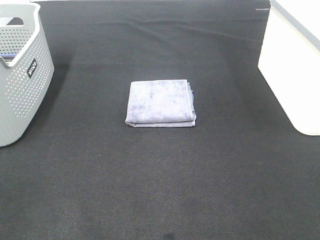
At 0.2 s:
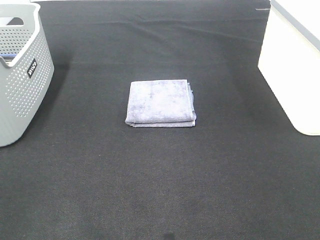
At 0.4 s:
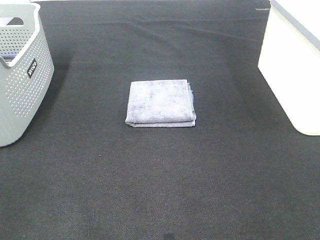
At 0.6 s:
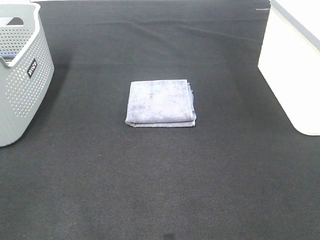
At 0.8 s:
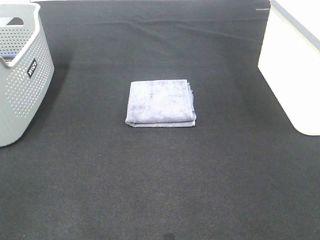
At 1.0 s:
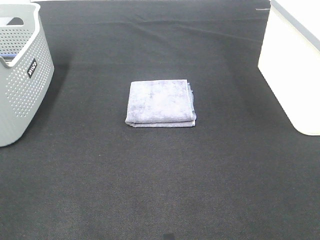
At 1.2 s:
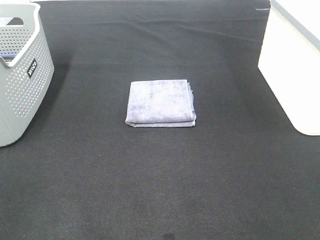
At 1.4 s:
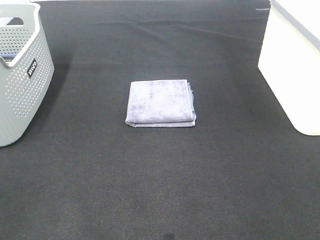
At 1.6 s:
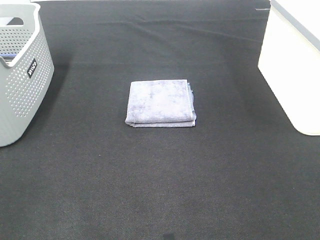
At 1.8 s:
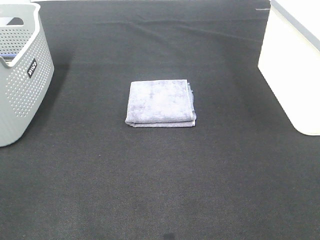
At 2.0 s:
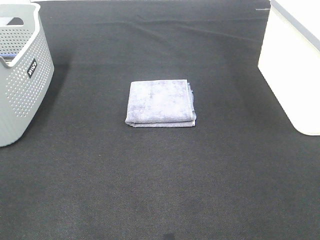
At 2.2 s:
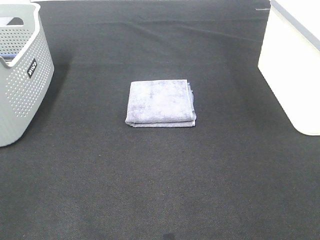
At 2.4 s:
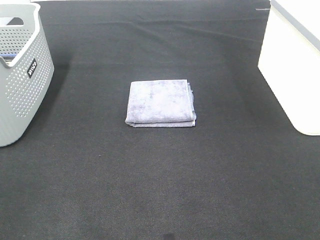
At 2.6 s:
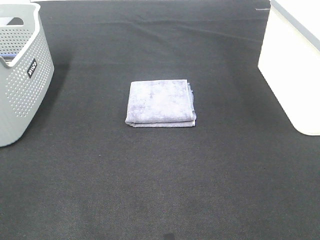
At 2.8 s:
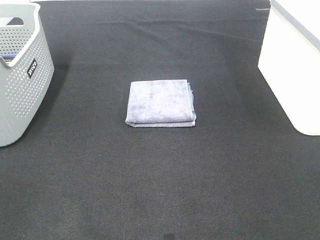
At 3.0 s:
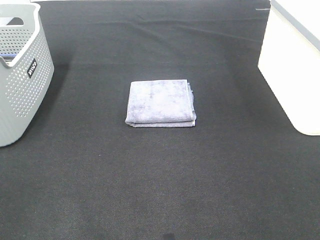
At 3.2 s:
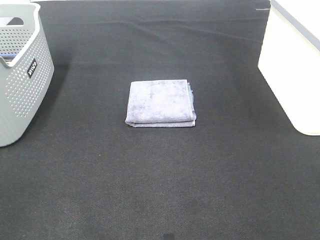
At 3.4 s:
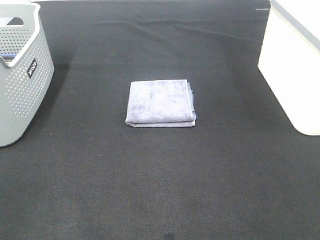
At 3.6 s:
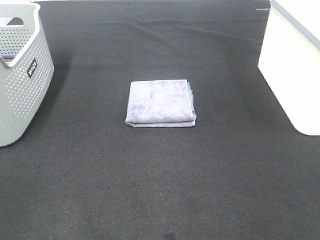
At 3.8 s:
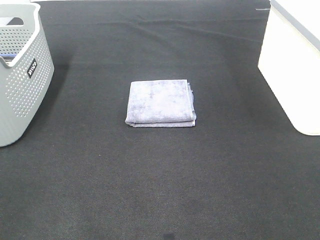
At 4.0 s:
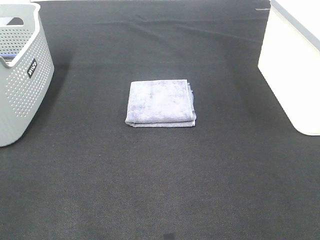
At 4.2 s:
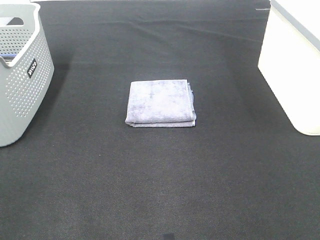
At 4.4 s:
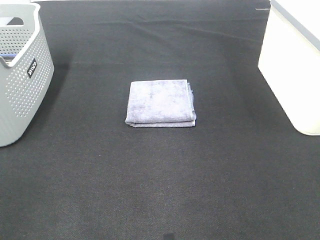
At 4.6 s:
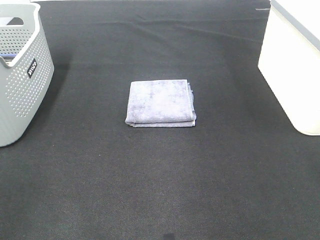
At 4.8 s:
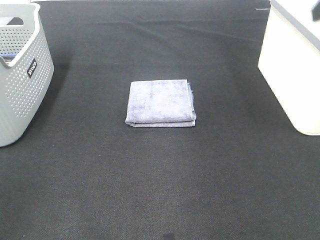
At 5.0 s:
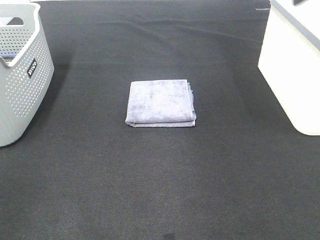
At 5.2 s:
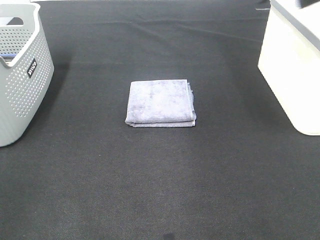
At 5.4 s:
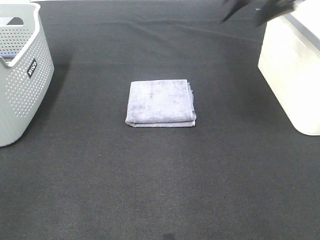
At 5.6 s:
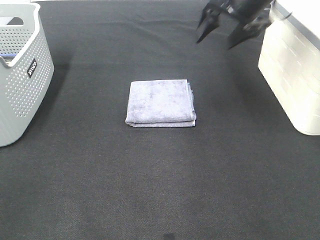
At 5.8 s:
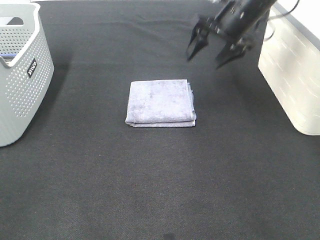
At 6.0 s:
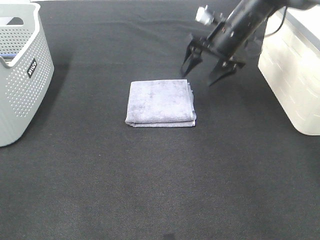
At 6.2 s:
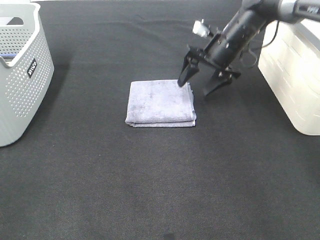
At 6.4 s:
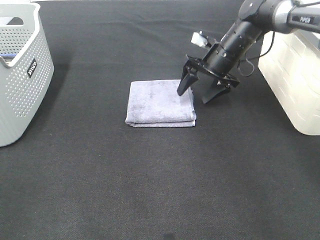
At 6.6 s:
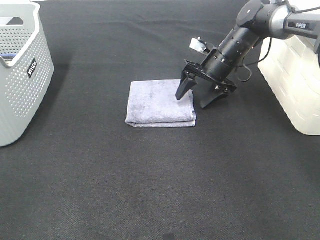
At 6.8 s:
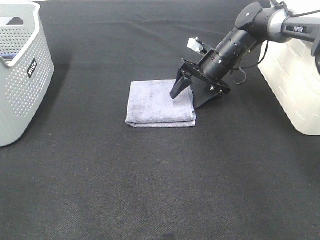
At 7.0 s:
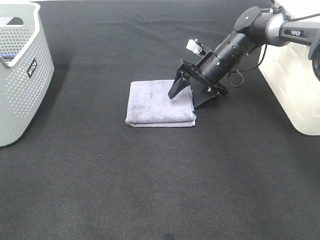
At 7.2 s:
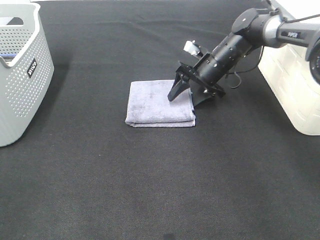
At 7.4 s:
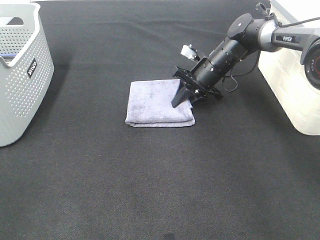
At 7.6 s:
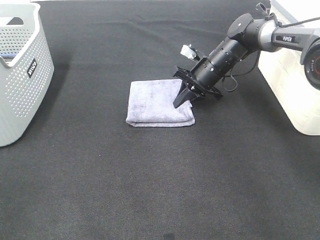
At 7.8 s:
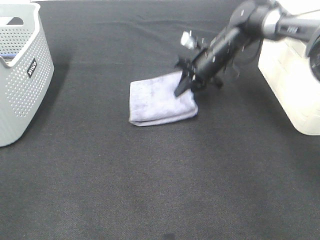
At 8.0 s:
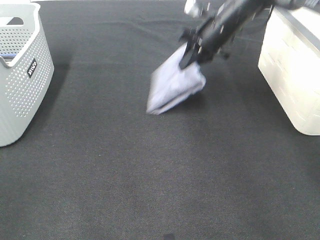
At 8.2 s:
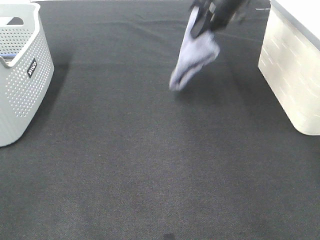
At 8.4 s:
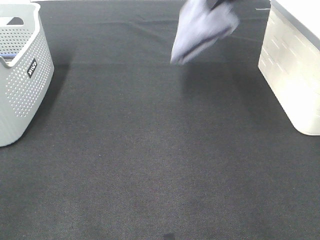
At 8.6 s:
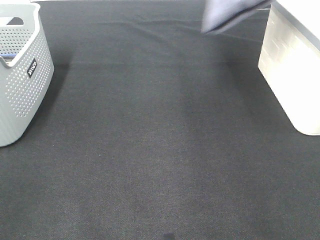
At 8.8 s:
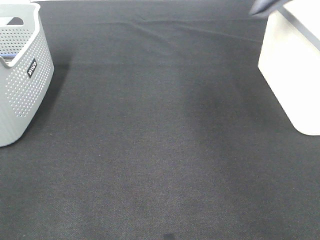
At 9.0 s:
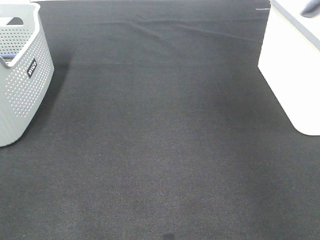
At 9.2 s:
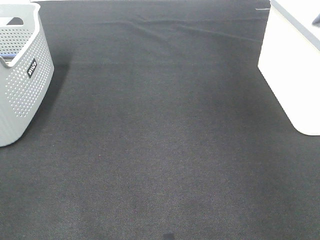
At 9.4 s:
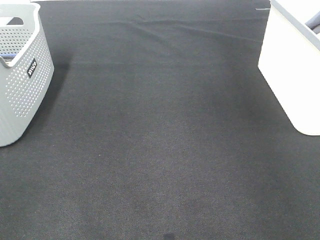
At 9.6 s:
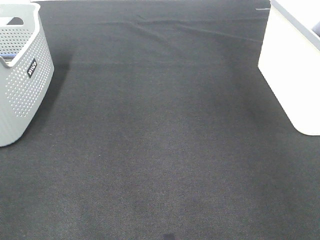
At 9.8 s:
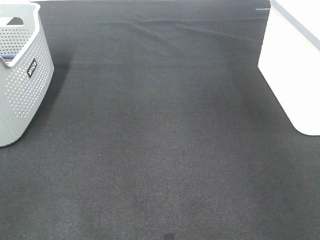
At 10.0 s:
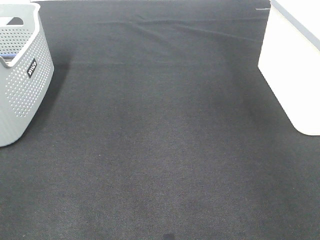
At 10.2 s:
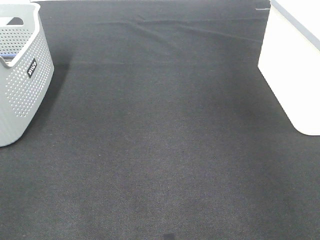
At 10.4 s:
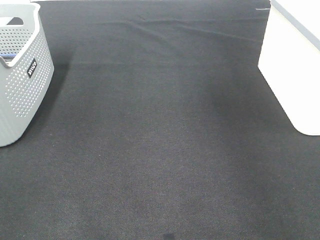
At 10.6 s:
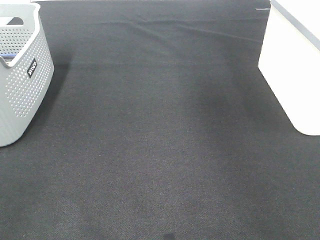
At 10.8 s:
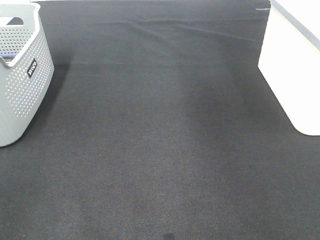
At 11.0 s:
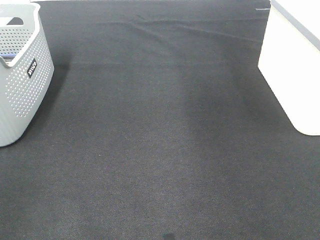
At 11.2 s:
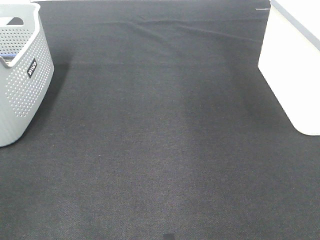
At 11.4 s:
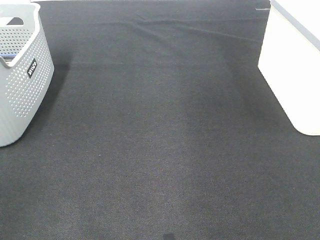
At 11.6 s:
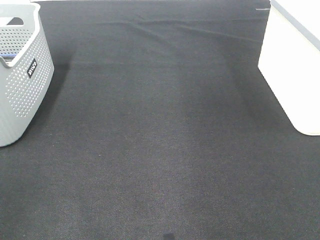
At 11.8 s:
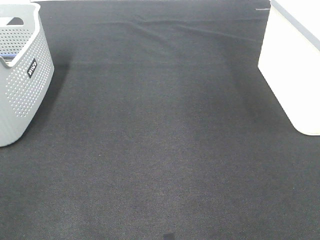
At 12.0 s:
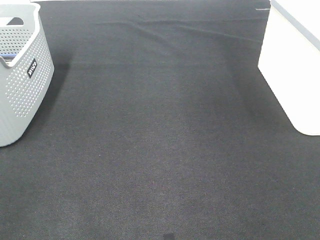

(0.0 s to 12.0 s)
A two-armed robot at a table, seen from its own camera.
Step, 0.0 s - 7.4 s: Right hand: grab the folded grey towel.
Step, 7.6 s - 9.8 s: Right hand: place the grey towel in right basket.
0.0 s - 3.0 s: Neither gripper changes place.
4.4 s - 6.0 s: The right gripper is displaced forward, downward and to the left by some 40 cm.
6.0 s - 7.6 s: The right gripper travels downward by some 10 cm, and closes.
7.6 s - 9.0 s: The right gripper is displaced upward and to the right by approximately 40 cm.

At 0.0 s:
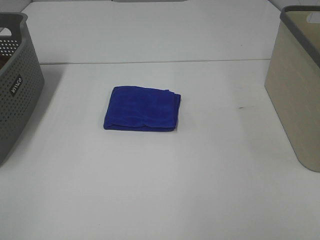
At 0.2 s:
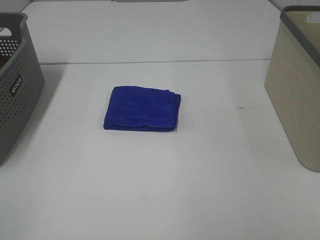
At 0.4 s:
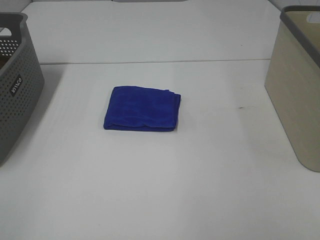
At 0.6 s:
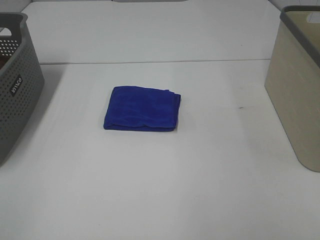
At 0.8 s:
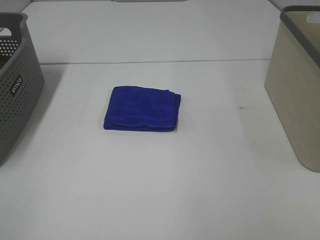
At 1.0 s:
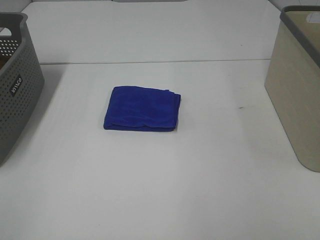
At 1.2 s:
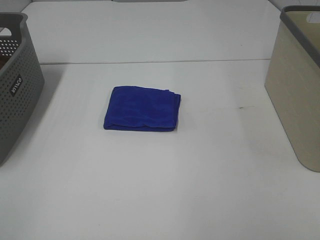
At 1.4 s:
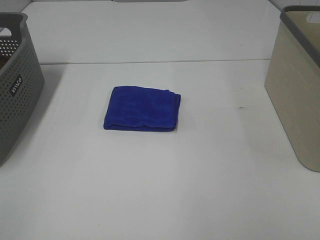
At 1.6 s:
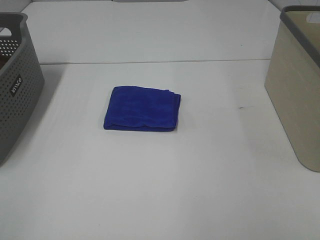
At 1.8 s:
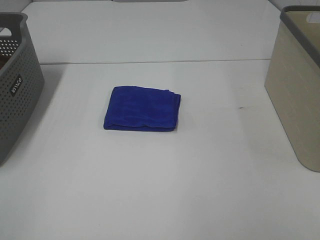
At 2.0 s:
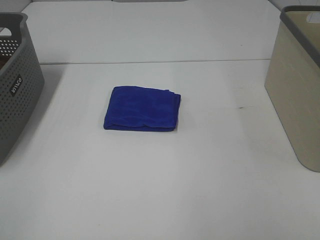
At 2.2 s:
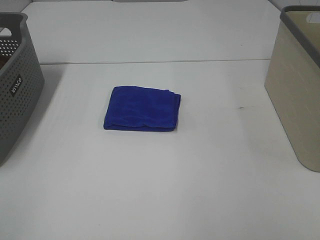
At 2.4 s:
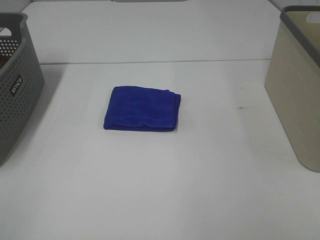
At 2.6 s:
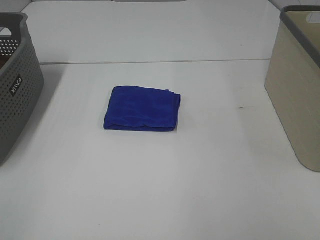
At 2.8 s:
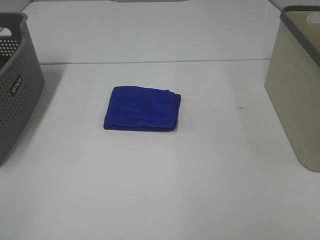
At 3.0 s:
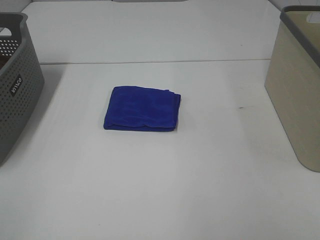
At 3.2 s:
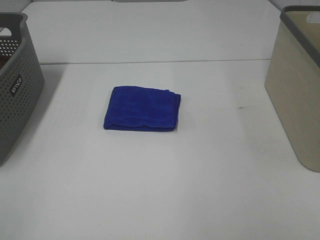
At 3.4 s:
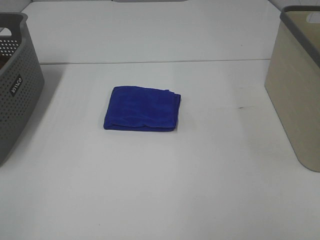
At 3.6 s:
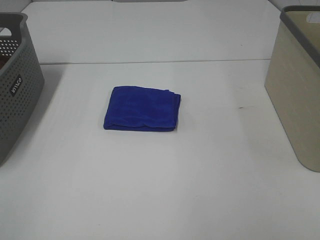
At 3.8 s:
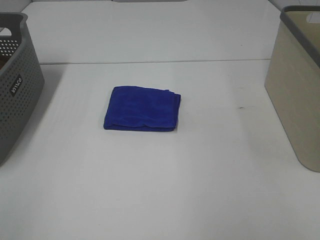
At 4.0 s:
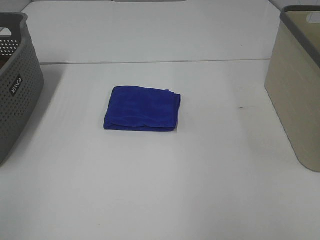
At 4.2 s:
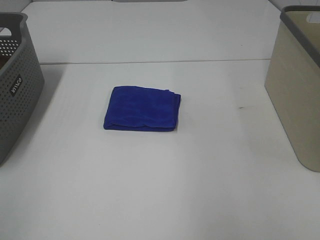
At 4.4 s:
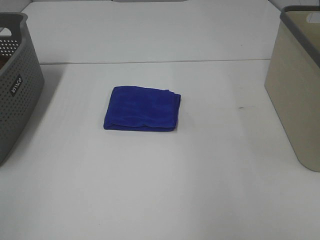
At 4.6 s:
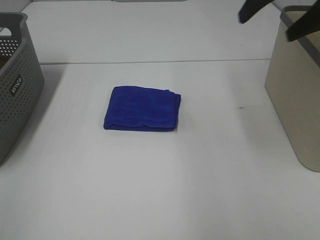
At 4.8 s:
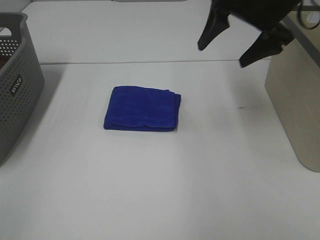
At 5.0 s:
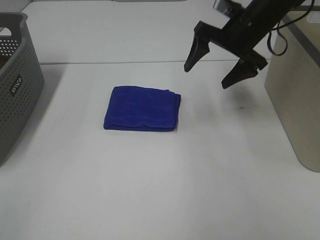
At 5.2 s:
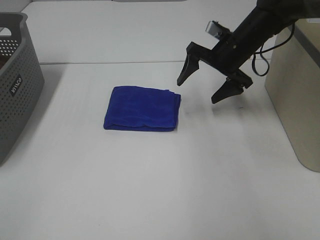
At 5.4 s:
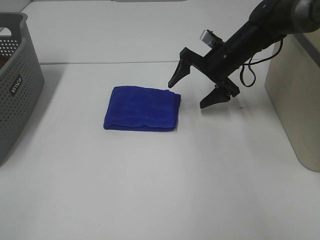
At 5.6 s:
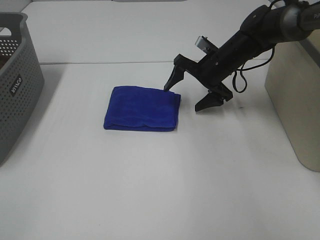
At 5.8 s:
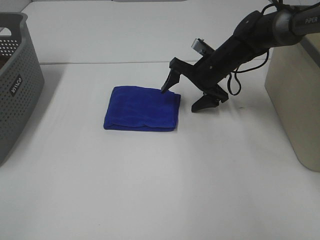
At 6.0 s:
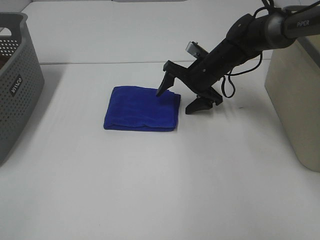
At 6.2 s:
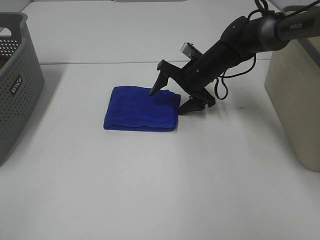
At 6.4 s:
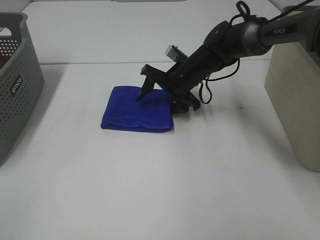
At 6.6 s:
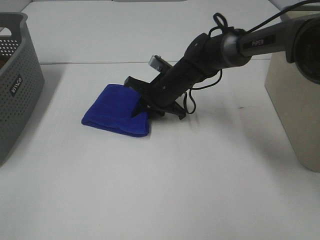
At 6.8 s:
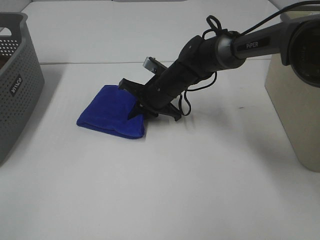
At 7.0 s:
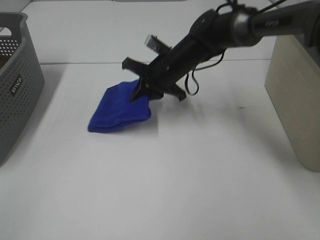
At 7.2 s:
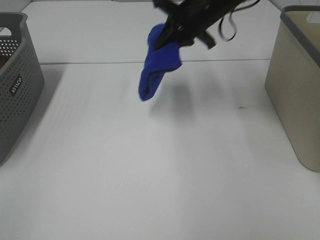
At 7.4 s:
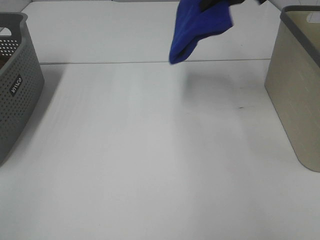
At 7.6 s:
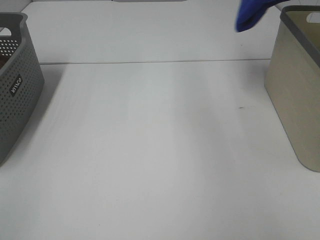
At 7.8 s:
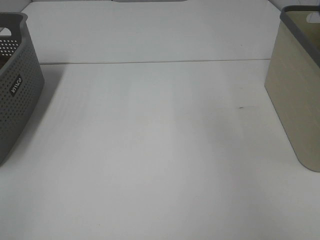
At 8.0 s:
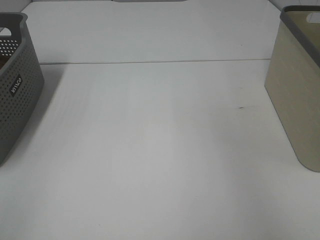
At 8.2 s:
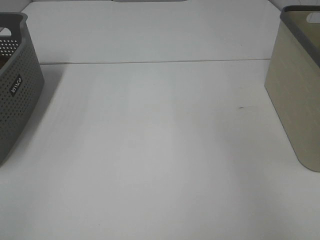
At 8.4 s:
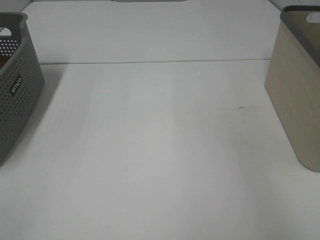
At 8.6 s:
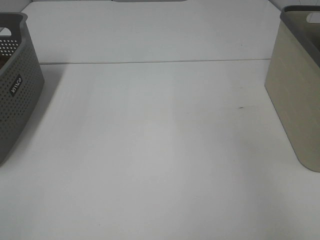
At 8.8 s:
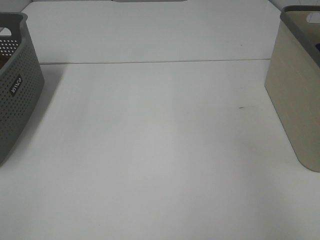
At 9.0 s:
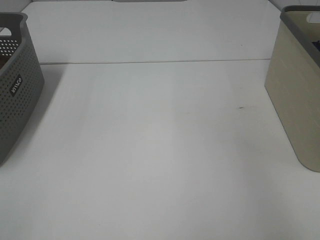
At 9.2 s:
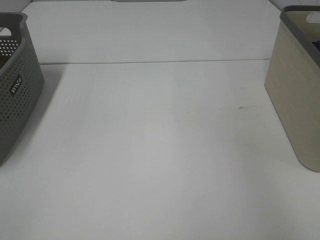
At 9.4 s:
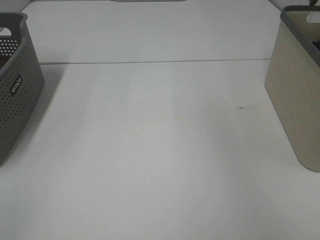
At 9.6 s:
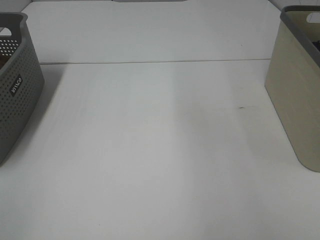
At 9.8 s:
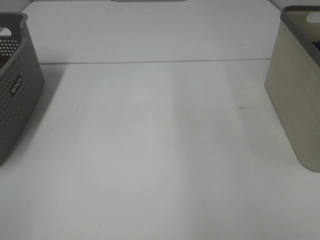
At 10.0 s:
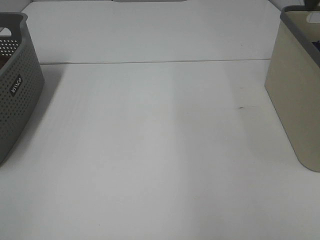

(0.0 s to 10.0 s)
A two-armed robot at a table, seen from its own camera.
Step, 0.0 s - 6.8 s: Right hand: grab the folded blue towel.
Step, 7.0 s - 9.2 s: Right hand: place the blue towel in right basket.
0.0 s - 2.8 s: Both grippers stay put.
4.2 s - 5.8 s: The right gripper shifts roughly 40 cm downward, forward and to the left.
5.8 s - 7.2 s: The right gripper travels upward by some 15 cm, and closes its fingers.
7.2 s - 8.6 s: The right gripper moves to the right, approximately 30 cm, and opens.
